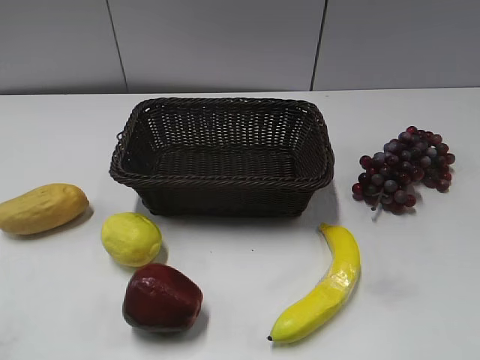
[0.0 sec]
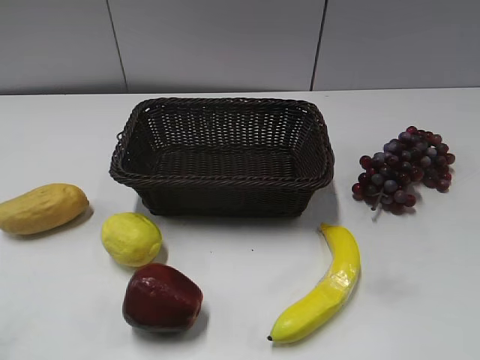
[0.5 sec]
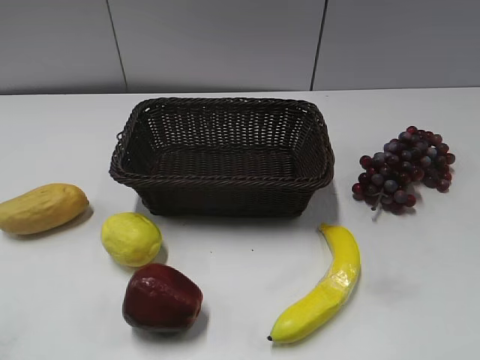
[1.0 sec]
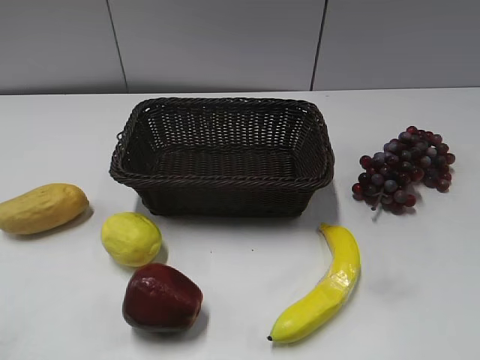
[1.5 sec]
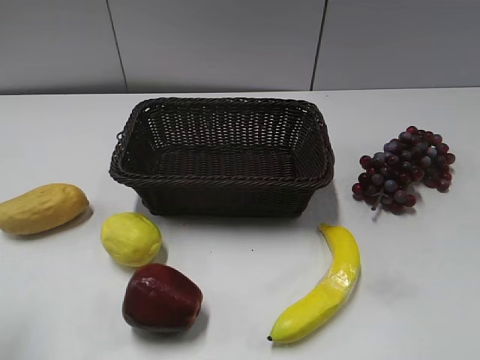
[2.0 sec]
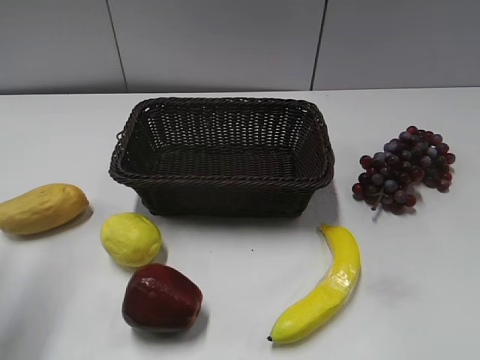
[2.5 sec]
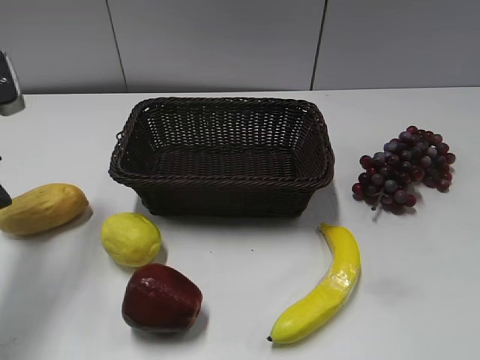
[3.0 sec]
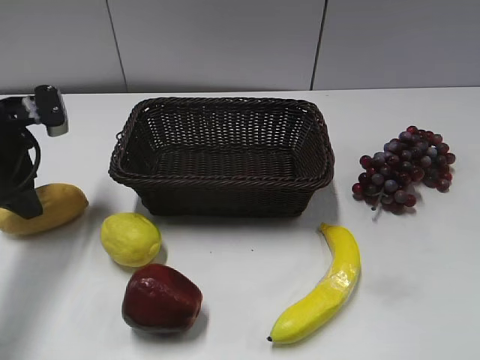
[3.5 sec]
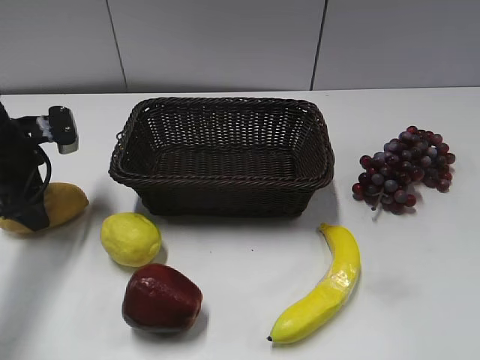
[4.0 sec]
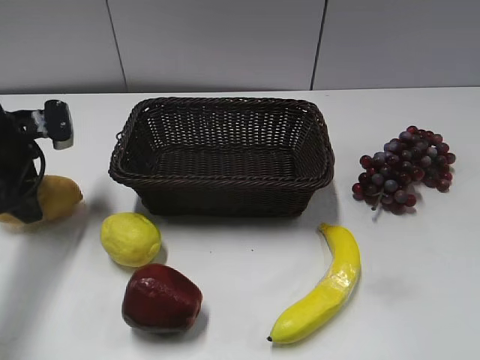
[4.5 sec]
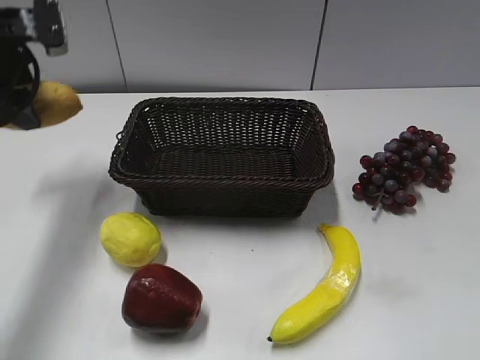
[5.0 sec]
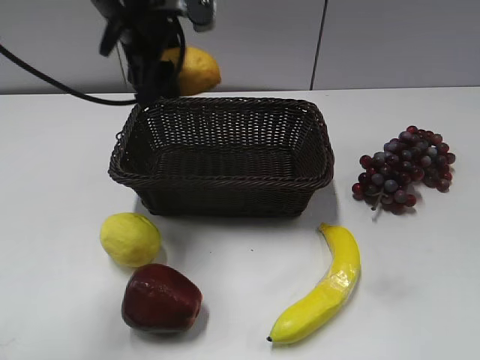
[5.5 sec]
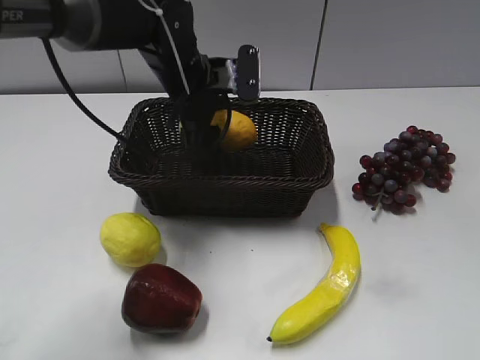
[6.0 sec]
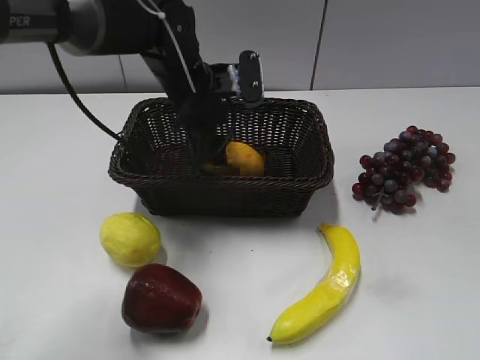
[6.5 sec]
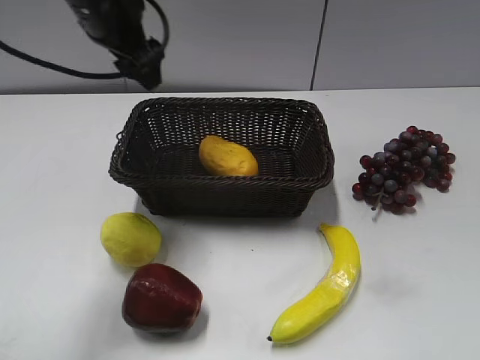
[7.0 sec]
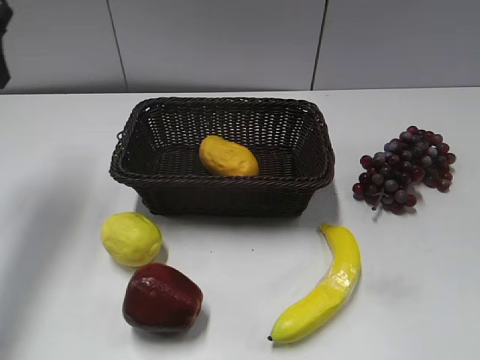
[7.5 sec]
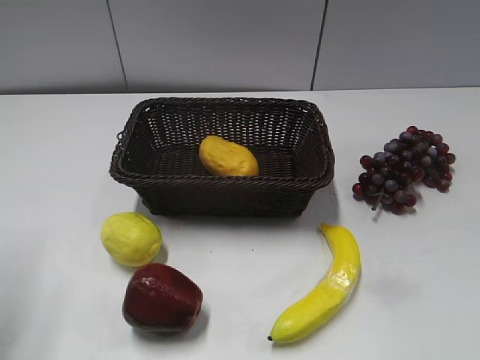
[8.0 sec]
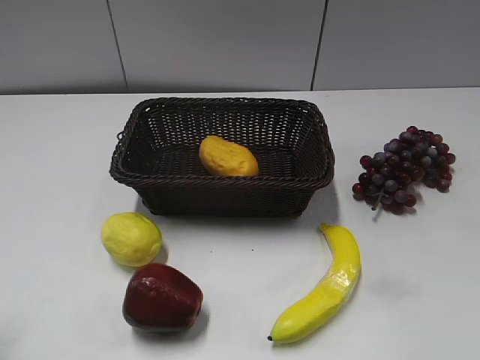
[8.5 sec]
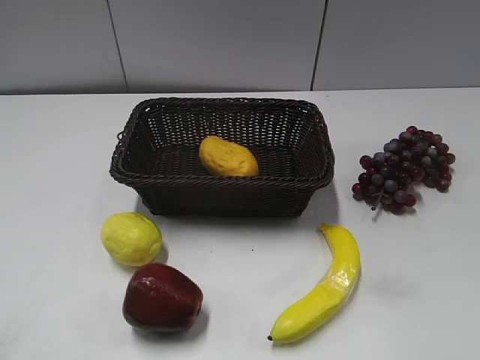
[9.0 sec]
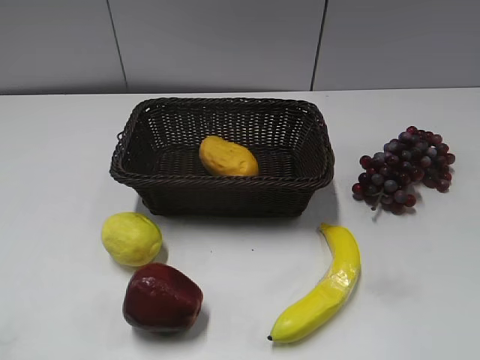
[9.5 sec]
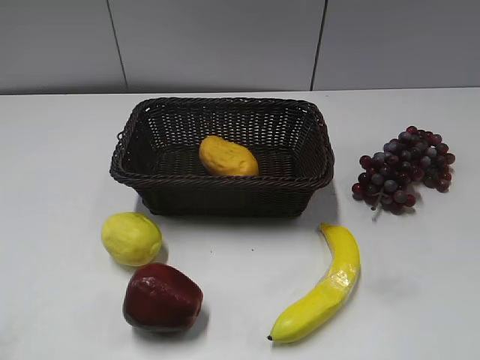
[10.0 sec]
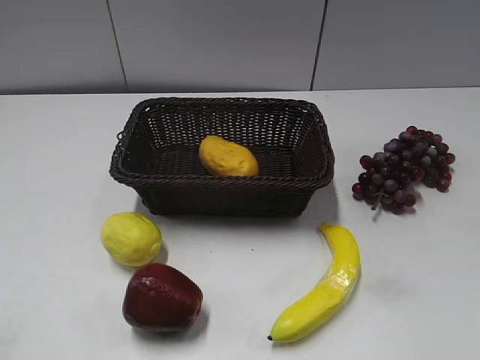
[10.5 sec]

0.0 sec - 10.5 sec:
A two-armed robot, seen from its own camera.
Step, 3.0 sec - 4.0 sec: Grasp the mango with left gripper.
Step, 4.5 sec - 6.5 sec: Place the mango in the basket with left gripper.
2.0 sec - 4.0 sec: The left gripper moves forward and downward, about 30 cm.
4.0 sec - 6.5 sec: The left gripper is displaced to the right by about 25 cm, and opens its fingers.
6.5 sec - 8.5 sec: The left gripper heads backward and to the left, covering some 40 cm, and closes up.
